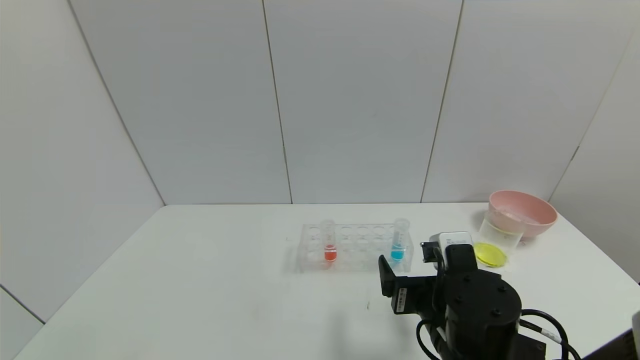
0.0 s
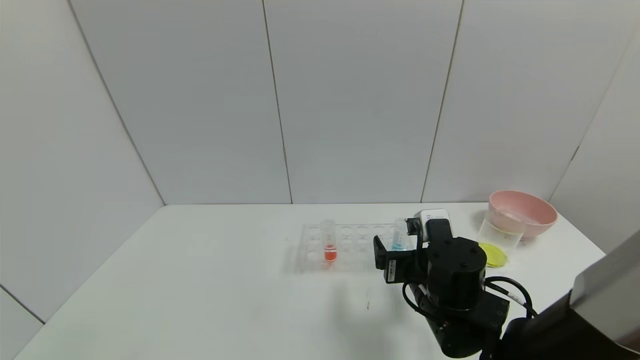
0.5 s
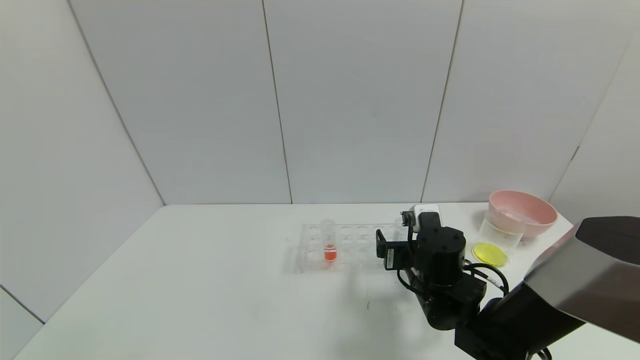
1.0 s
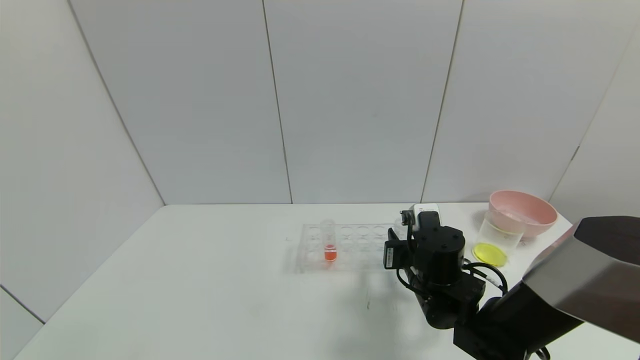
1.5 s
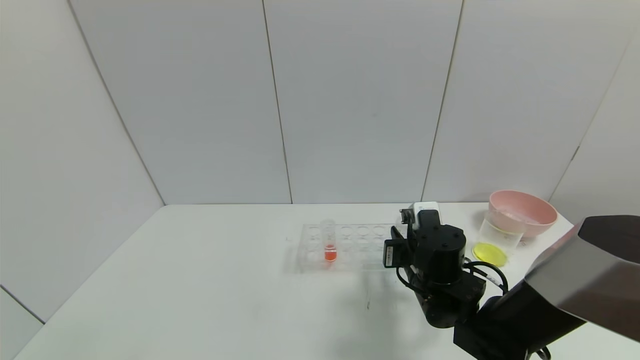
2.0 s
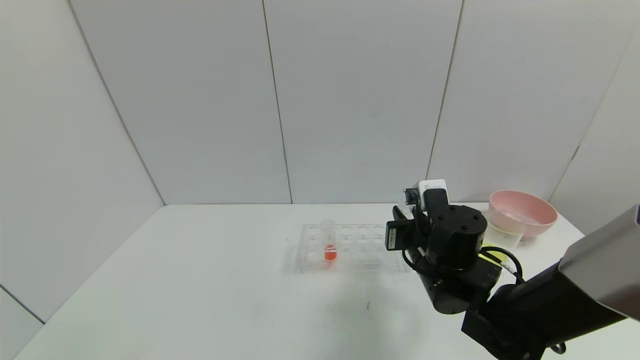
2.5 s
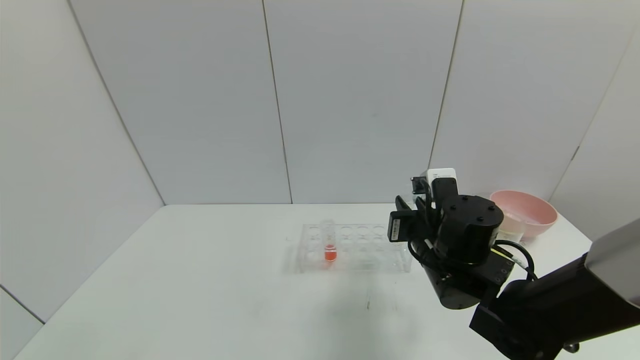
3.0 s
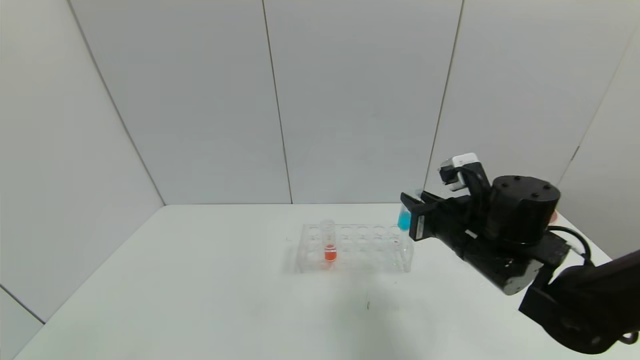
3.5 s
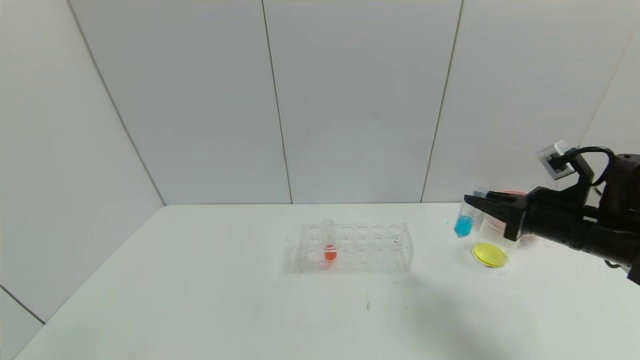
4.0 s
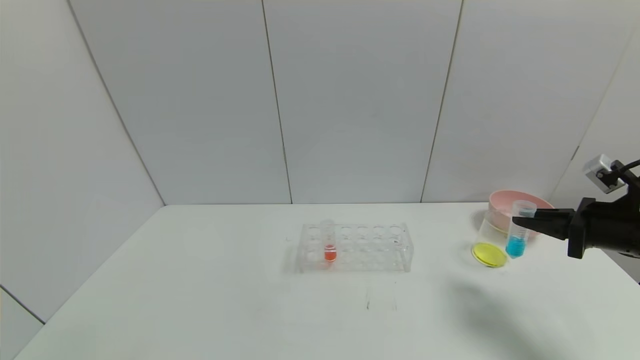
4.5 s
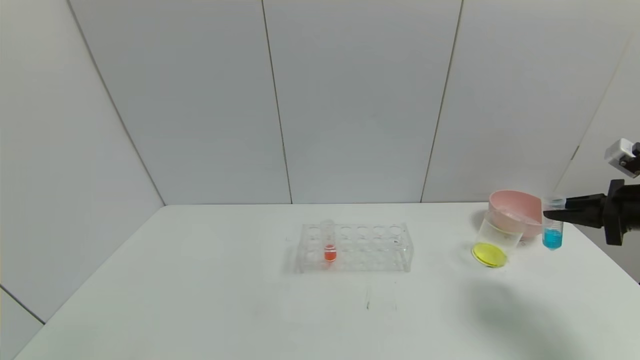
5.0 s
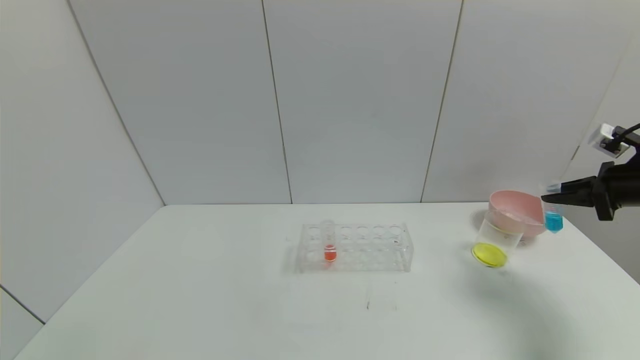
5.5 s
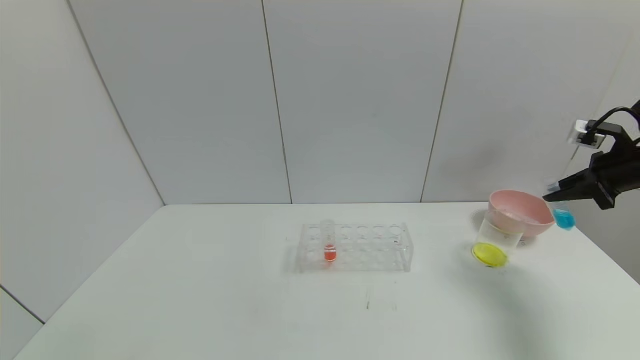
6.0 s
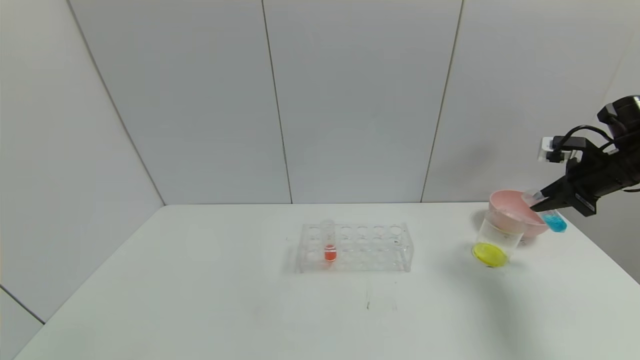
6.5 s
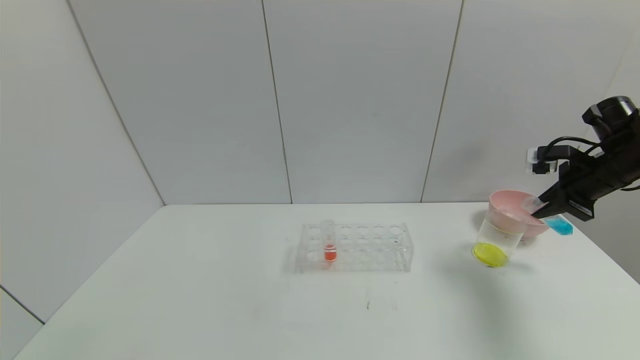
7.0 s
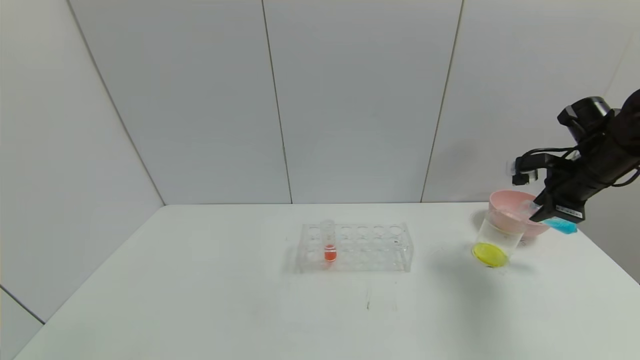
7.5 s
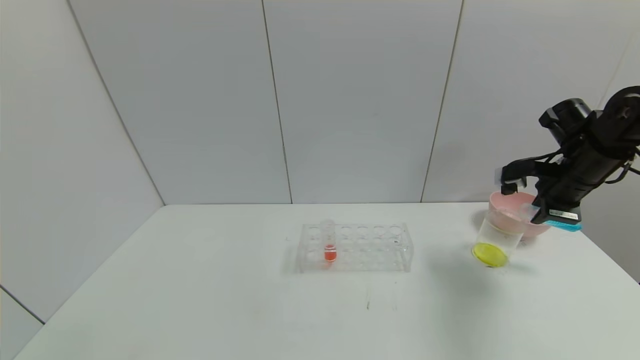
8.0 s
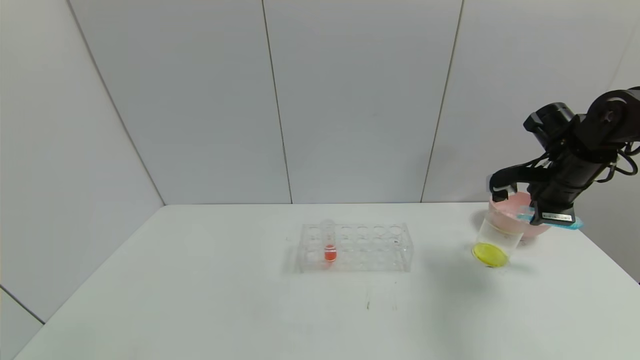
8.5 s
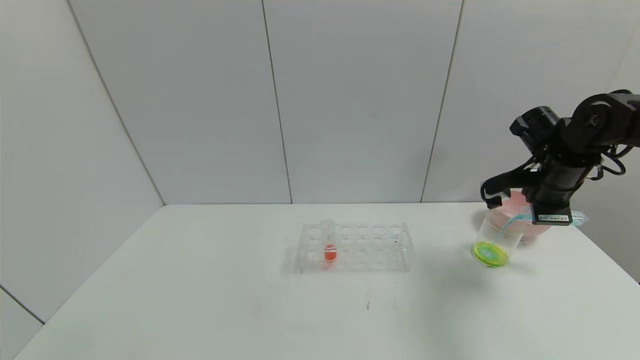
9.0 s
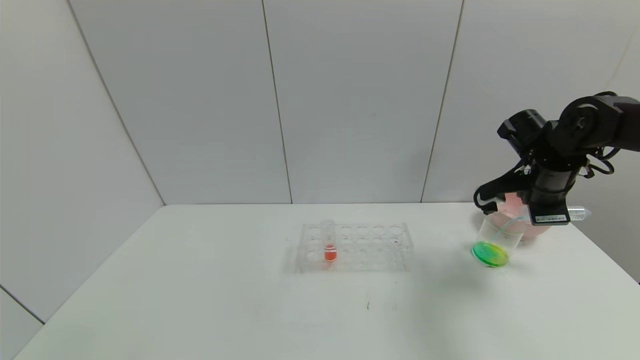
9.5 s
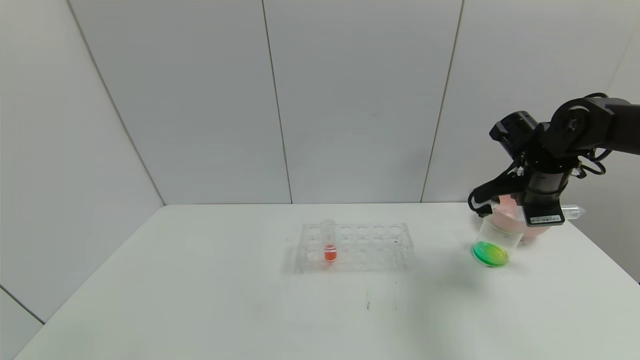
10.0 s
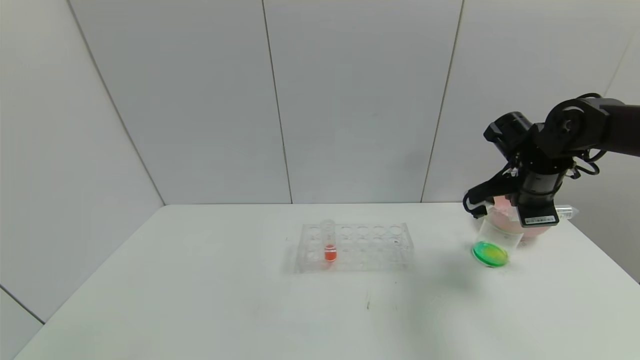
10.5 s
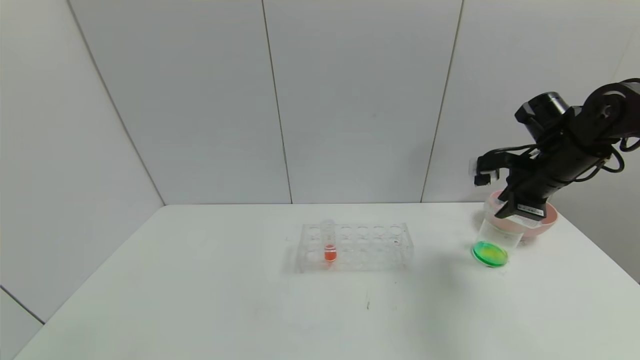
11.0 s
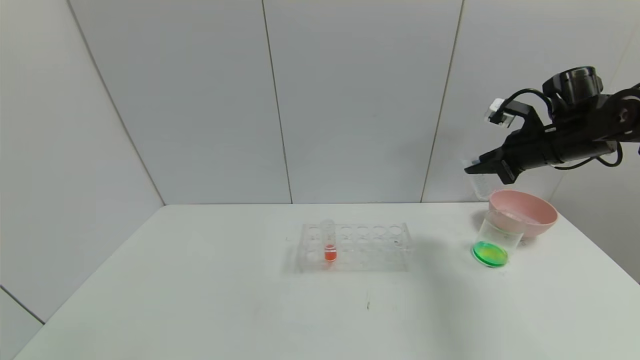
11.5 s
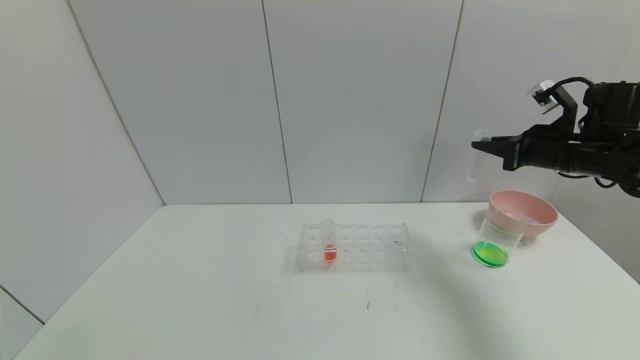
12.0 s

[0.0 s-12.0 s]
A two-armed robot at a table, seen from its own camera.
Task of the whole recording: pick up the test tube with yellow pigment and the test tube with blue pigment by grippers and pour them into the beaker.
Step, 2.0 to 10.0 s: Pour the blue reagent into the graduated cylinder with the right gripper.
0.0 to 2.0 s: The right gripper moves forward, roughly 10 cm, and closes up.
2.0 to 4.0 s: The right gripper goes approximately 20 cm to the right and upward.
4.0 to 6.0 s: The right gripper heads to the right, forward and upward, covering roughly 15 cm.
6.0 to 8.0 s: The right gripper shifts approximately 10 cm to the left.
8.0 to 10.0 s: The right gripper moves to the left, about 5 cm.
10.0 to 12.0 s: The right gripper shifts by roughly 5 cm.

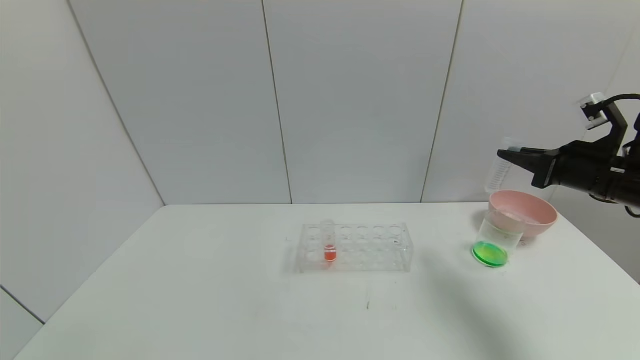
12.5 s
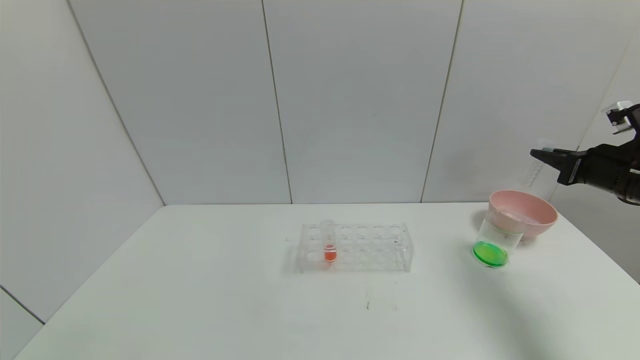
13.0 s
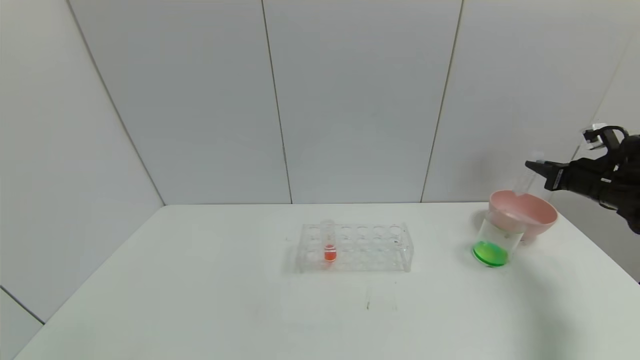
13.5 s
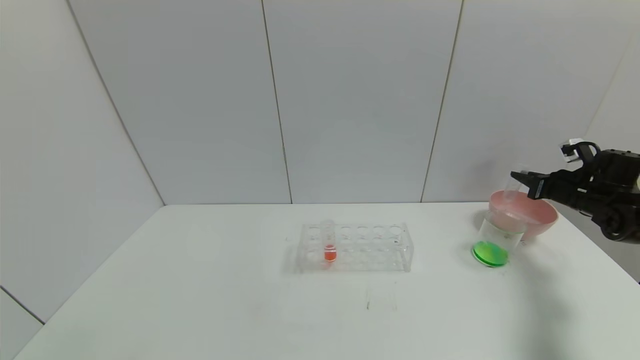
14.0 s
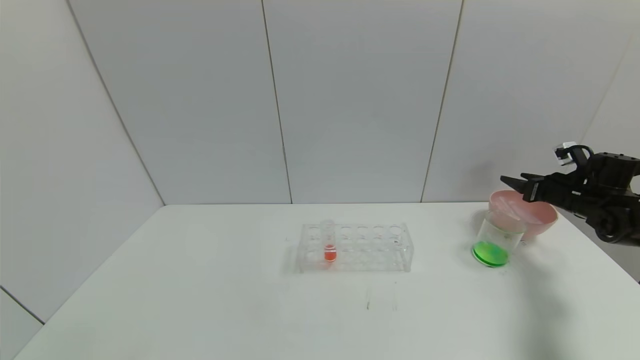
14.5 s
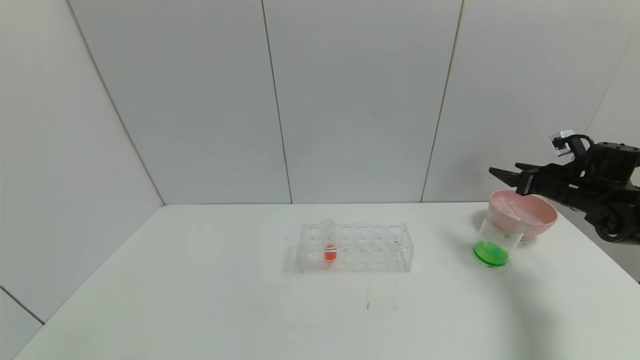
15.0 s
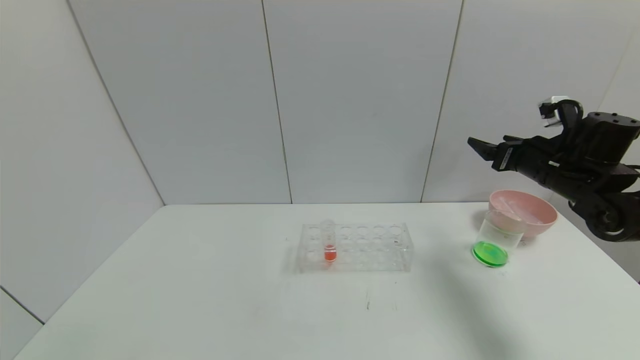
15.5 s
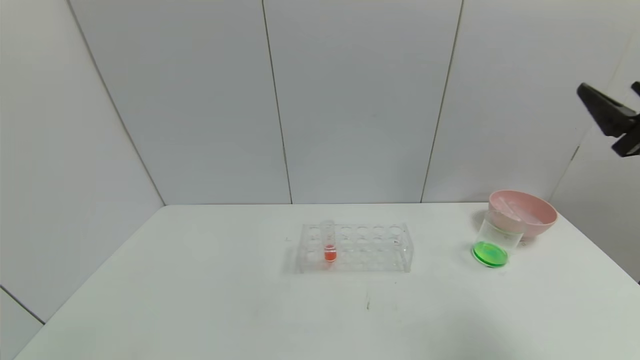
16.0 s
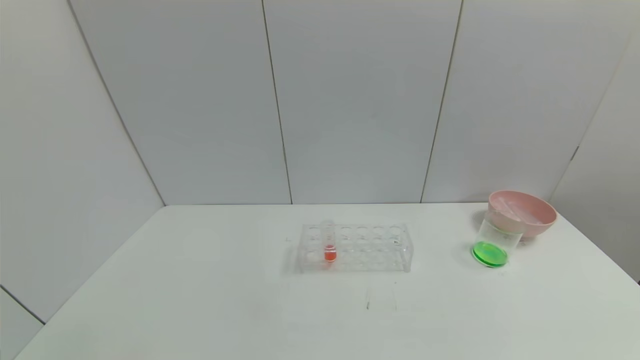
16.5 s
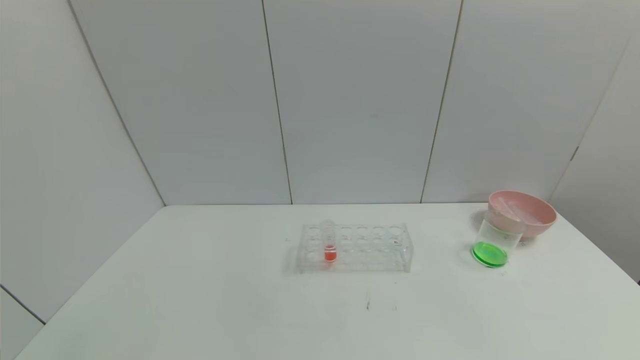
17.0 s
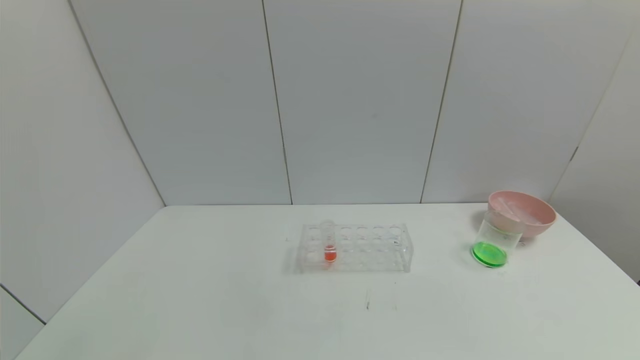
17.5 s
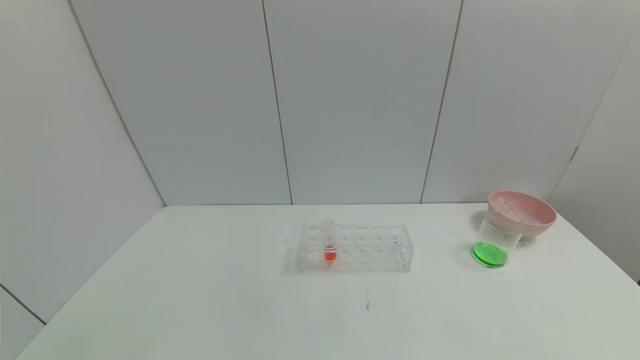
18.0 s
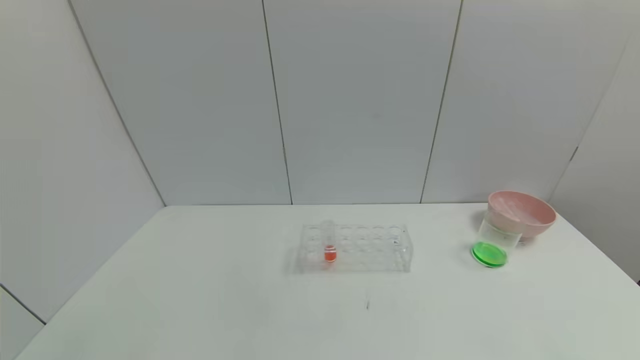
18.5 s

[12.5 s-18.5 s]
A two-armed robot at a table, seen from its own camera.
Task of the whole recording: pick up the test tube with yellow pigment and the test tube with blue pigment by grippers and pour them into the beaker.
Step, 12.5 to 14.5 s: Place the test tube into the bowl with the right gripper.
12.5 to 14.5 s: The right gripper goes about 20 cm forward, downward and to the right, and opens.
14.5 to 16.5 s: The right gripper heads backward and upward, covering some 35 cm, and opens its fingers.
